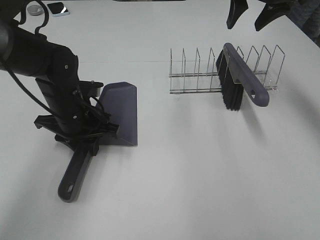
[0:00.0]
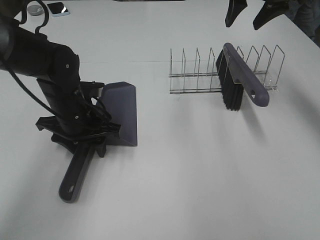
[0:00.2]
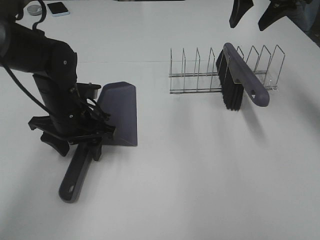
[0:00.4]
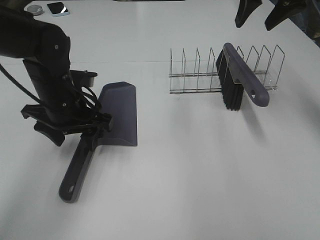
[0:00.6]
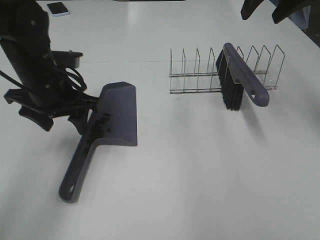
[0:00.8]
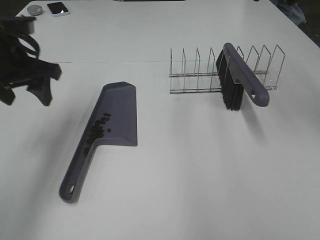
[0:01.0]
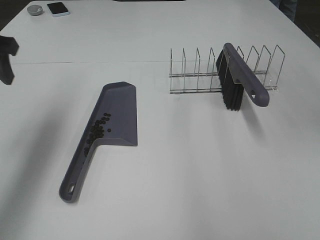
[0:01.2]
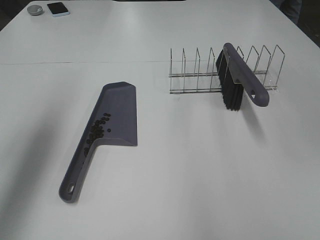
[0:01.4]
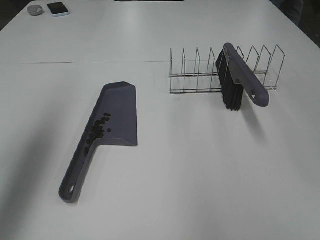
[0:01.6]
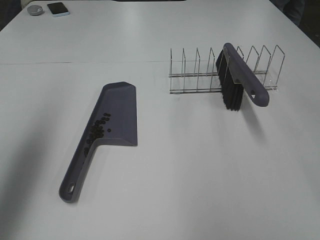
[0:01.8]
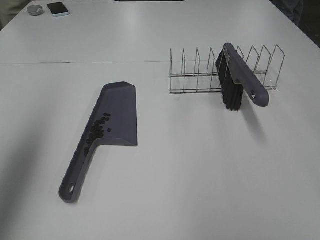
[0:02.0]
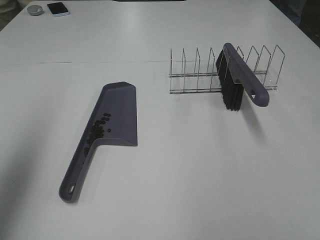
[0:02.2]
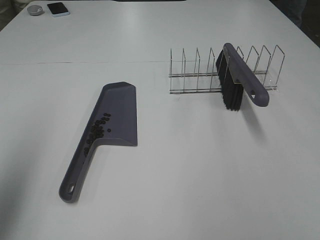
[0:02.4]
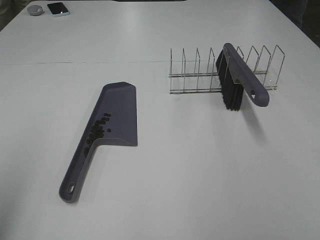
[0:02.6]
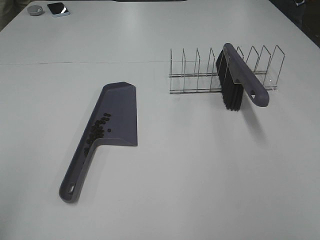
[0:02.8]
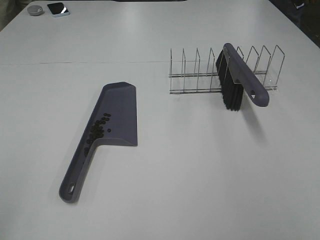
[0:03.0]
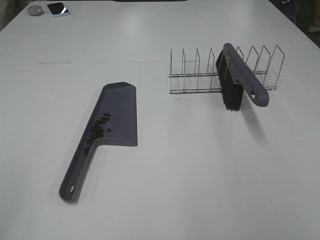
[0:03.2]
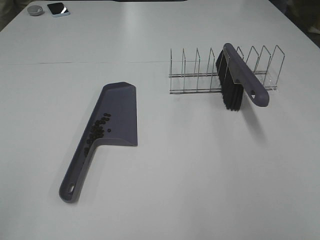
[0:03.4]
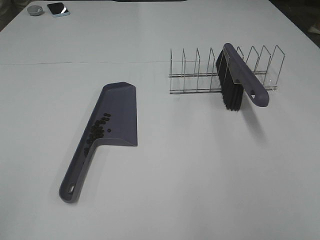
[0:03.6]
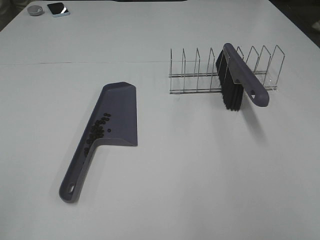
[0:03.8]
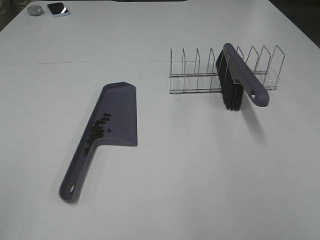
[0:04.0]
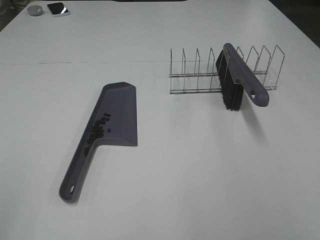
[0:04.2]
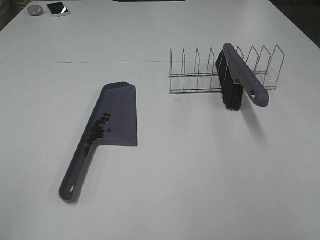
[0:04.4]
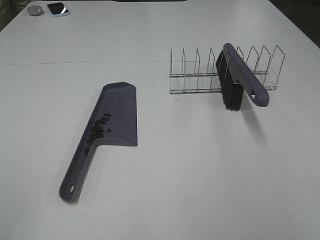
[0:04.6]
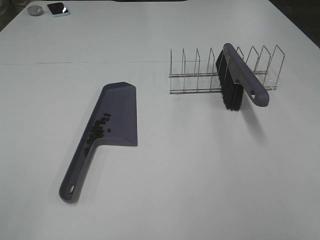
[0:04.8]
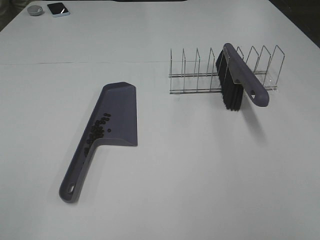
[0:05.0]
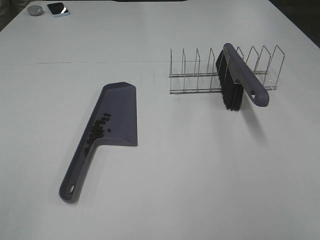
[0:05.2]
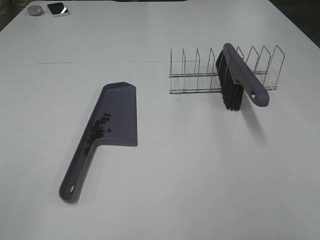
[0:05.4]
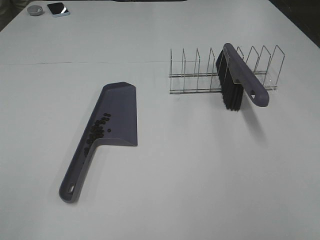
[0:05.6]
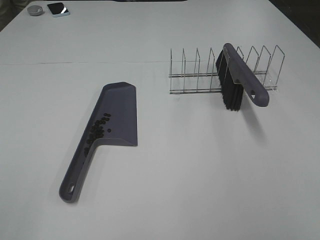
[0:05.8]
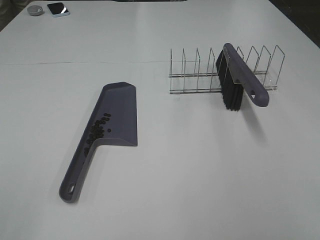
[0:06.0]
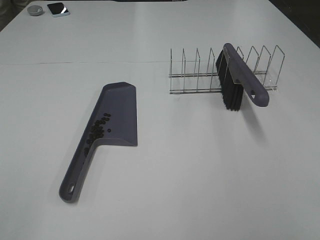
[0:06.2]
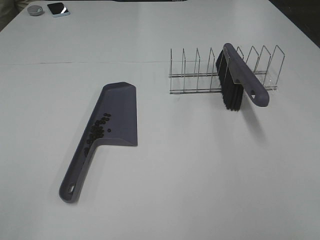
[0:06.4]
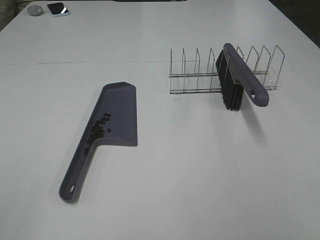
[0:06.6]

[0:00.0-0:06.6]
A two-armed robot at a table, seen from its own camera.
Task of the whole recording: Sweep Coffee Bean.
0.0 to 1.6 s: The right gripper moves backward and upward, roughly 25 cm. Meanwhile the left gripper heads upward and to the left, covering about 30 cm, and opens.
1.6 to 3.2 s: The left gripper travels backward by about 25 cm.
5.0 to 6.6 s: Both grippers stay put.

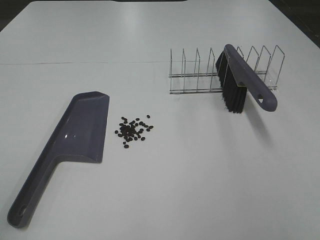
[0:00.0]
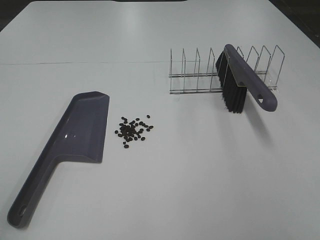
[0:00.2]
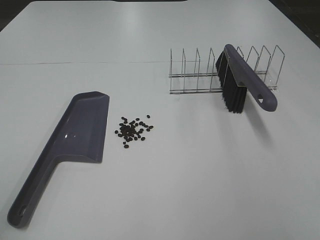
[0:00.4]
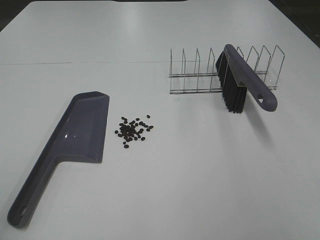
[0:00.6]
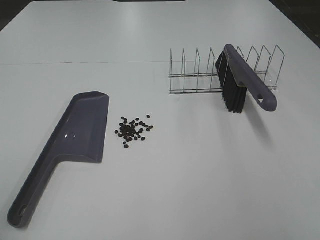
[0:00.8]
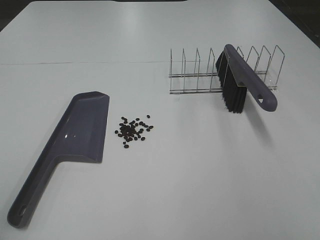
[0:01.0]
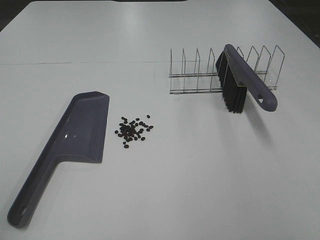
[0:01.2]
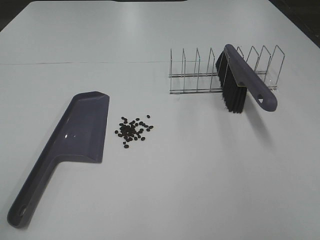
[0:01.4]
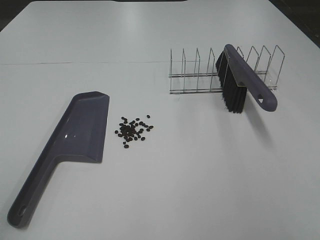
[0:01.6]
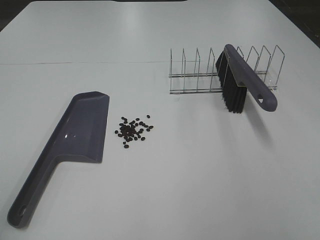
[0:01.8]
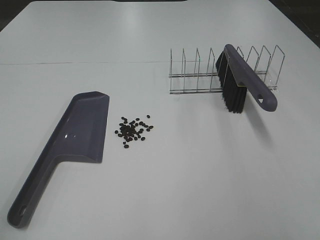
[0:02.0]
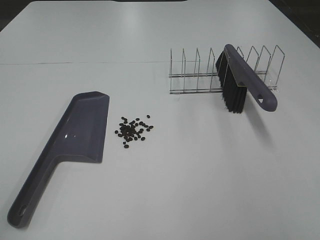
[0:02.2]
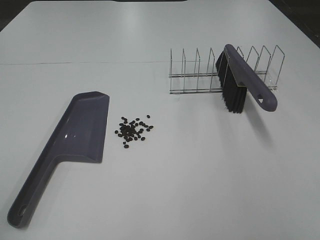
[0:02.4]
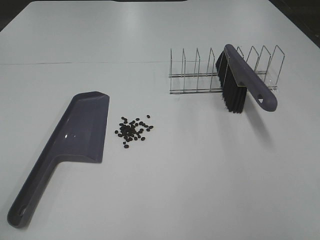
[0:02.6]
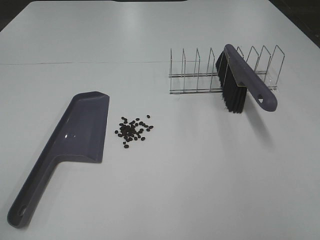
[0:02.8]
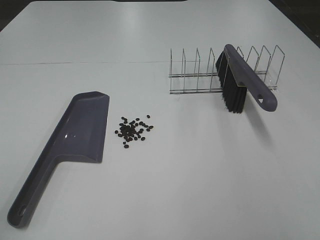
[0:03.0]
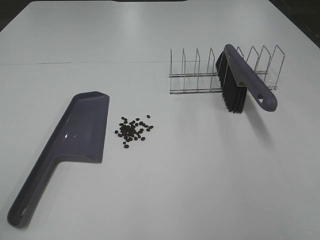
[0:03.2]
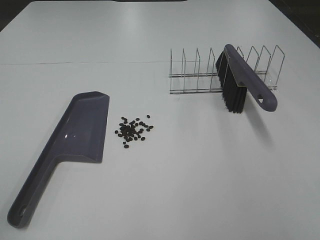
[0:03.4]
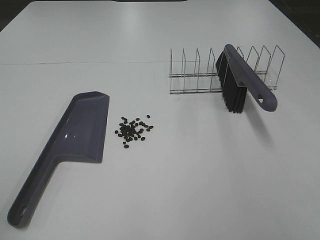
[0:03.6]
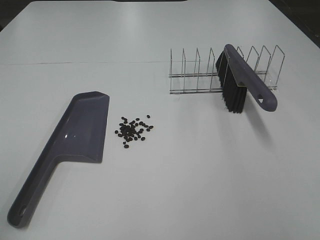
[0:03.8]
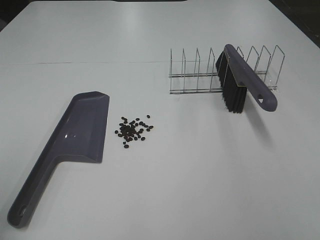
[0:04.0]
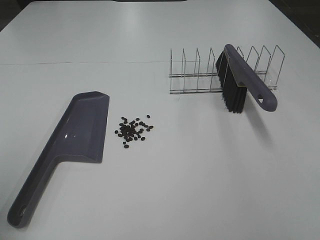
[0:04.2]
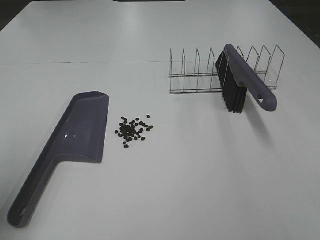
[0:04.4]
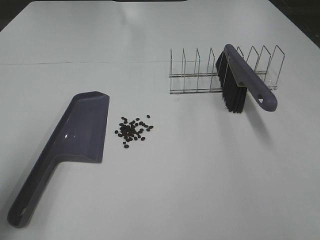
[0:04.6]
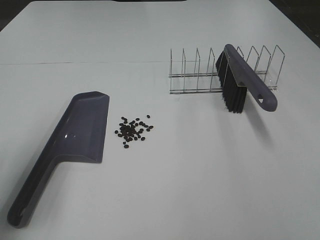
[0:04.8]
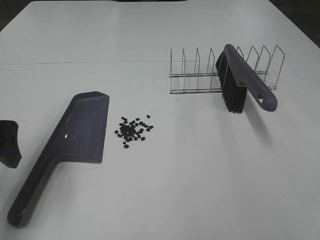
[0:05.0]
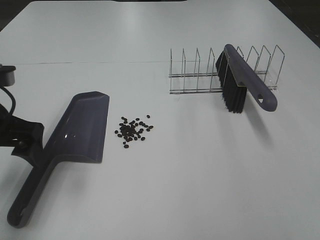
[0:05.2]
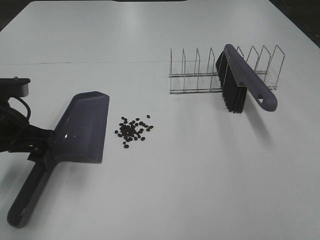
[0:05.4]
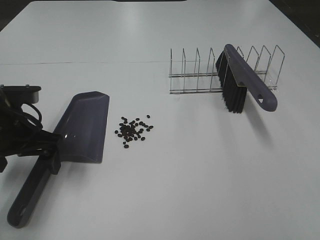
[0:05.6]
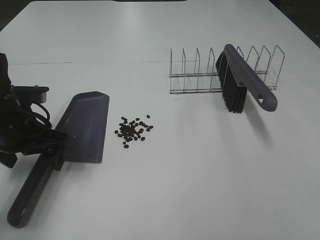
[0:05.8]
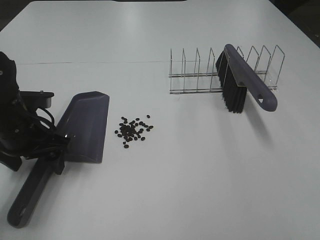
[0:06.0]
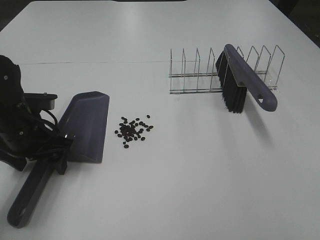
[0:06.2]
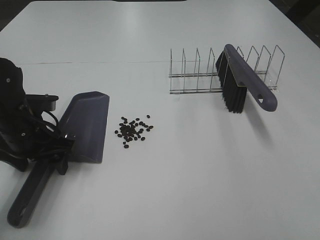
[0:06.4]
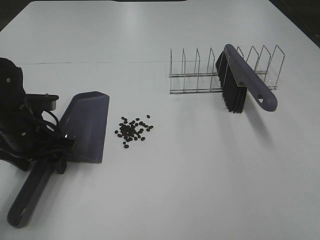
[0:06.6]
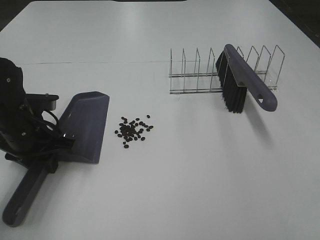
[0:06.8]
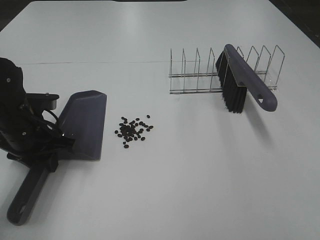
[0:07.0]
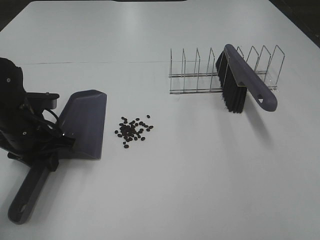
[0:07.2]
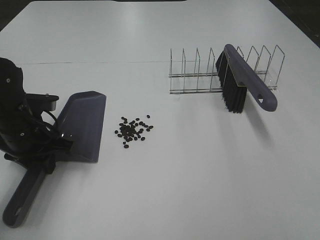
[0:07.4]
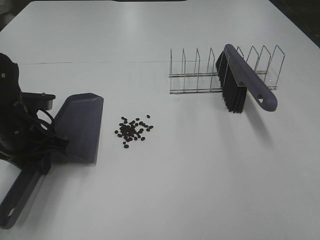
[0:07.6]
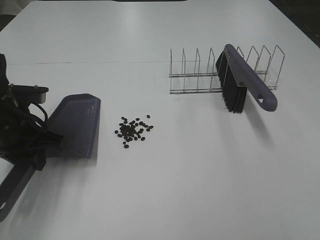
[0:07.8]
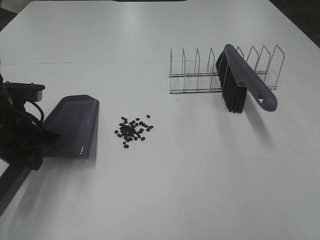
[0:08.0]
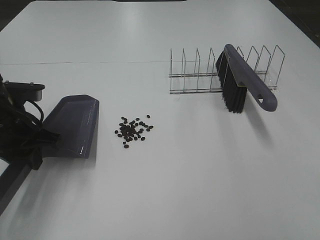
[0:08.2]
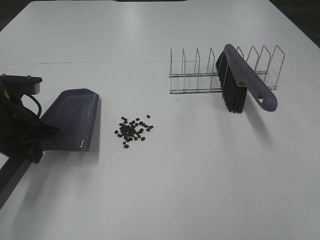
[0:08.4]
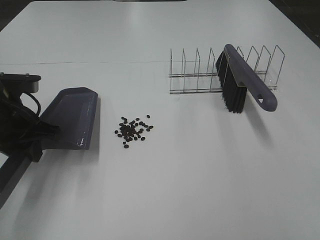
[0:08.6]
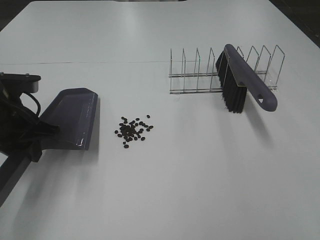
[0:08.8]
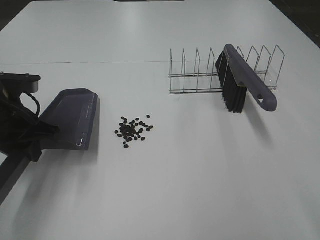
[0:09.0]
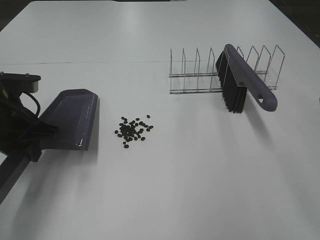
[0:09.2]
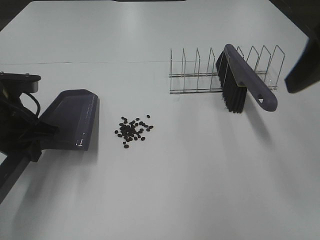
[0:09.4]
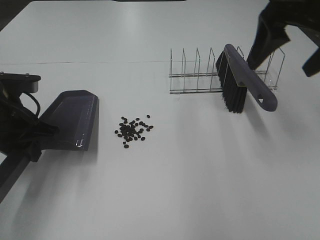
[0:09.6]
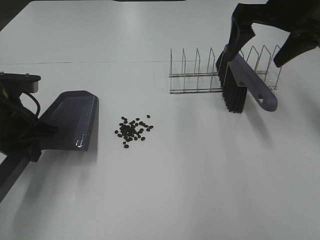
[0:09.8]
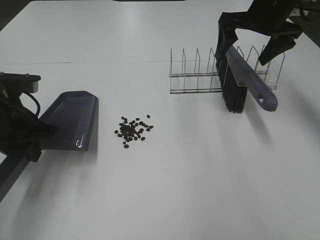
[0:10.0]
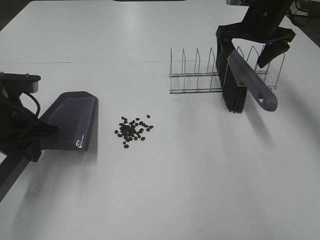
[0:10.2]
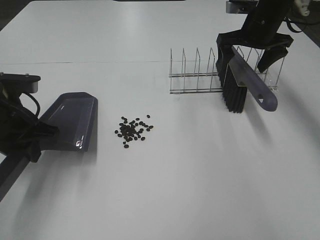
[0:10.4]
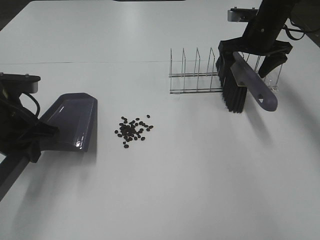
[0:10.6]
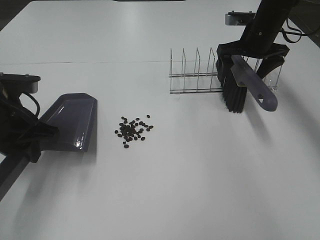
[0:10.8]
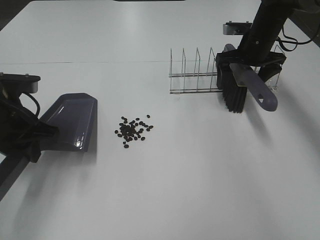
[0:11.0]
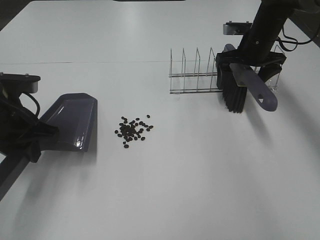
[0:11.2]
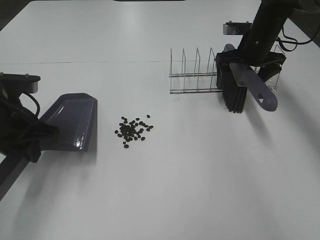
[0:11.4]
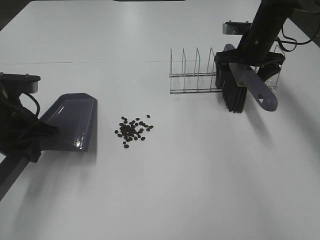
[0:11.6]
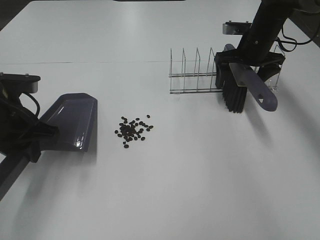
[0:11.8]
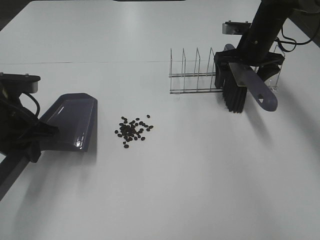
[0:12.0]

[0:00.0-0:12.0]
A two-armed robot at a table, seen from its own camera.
Task of the whole recording: Sweep Coffee Bean.
Step, 0.0 to 7.2 s: Left hand: grab the dustpan.
0.0 to 3.0 s: Both grippers stay about where they are.
3.0 to 4.4 s: The left gripper travels forward by roughly 15 cm.
4.4 to 6.0 s: The left gripper shifts some 25 cm downward, forward and to the right.
6.0 to 7.6 s: The left gripper closes up.
9.0 to 10.4 s: The right gripper heads forward, covering approximately 40 cm.
10.4 to 12.0 s: The grippers make only small movements.

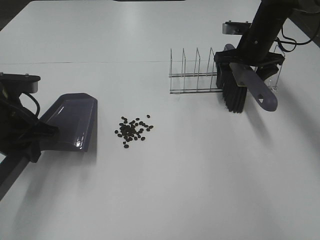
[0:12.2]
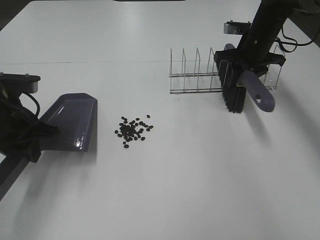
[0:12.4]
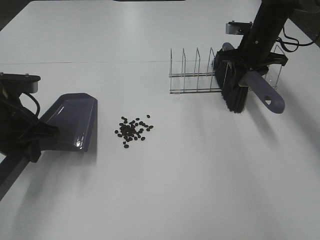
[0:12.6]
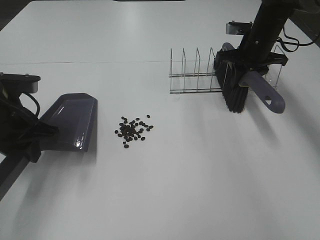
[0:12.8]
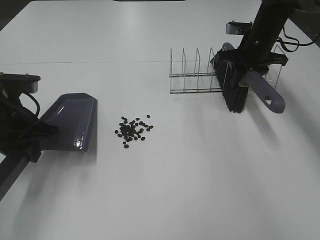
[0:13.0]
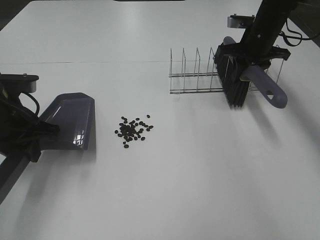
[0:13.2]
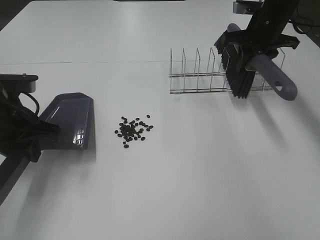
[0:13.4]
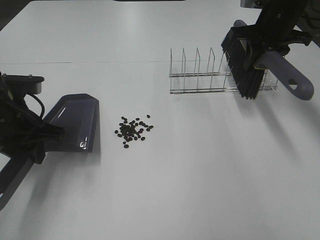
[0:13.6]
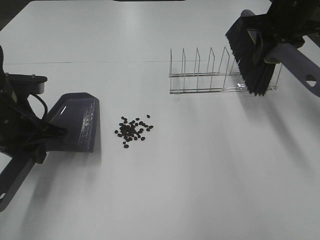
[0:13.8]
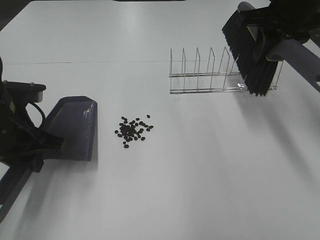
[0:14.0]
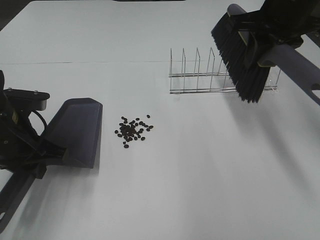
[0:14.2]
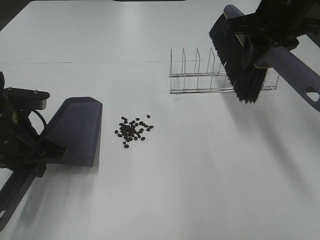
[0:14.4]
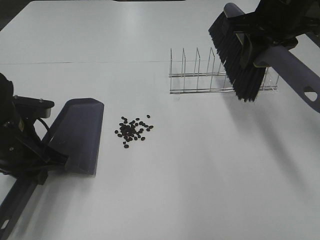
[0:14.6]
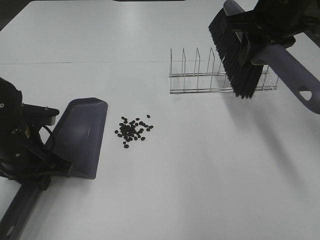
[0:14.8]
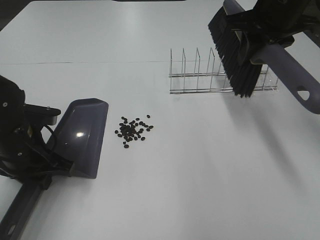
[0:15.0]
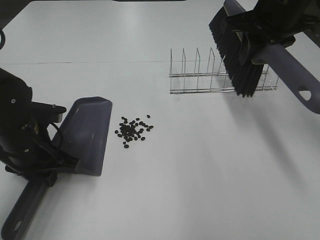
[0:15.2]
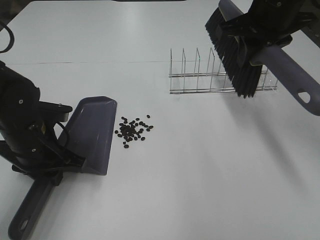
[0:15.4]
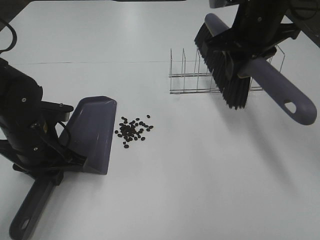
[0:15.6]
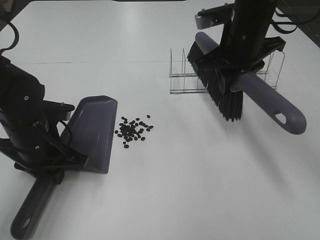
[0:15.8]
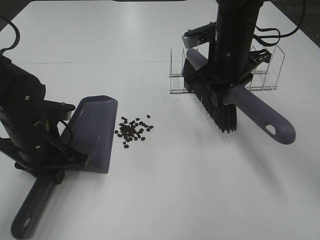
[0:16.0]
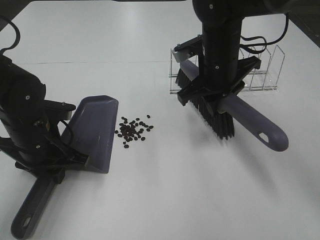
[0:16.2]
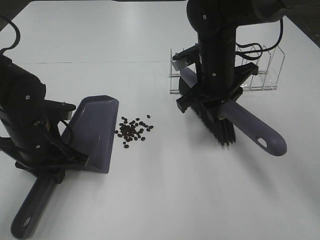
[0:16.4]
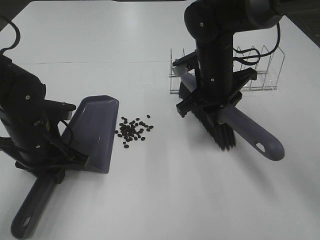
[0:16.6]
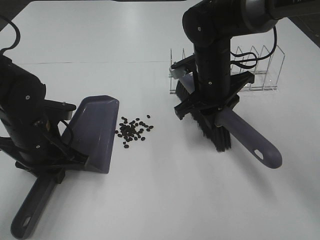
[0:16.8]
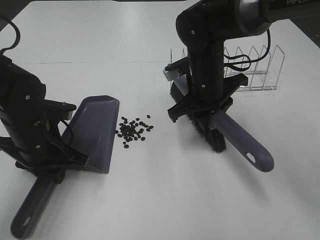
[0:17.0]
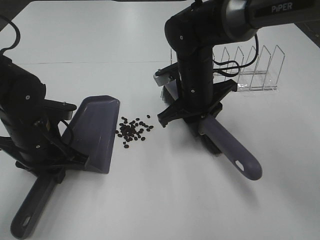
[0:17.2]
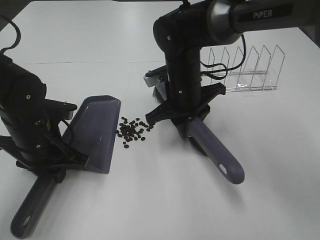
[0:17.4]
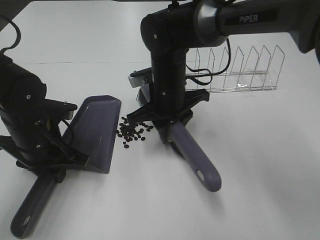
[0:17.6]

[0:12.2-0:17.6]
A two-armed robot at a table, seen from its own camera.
Task of the whole recording: Sweep Coffee Bean.
Step, 12.2 to 15.6 s: Left hand: move the dustpan to the left side of the coffee beans.
12.2 to 13.6 s: The right gripper goes roughly 10 cm upward, and closes its fingers.
13.6 to 15.0 s: The right gripper shifts about 10 cm backward and upward, while the left gripper travels downward by roughly 5 cm.
15.0 to 16.2 s: The right gripper is displaced downward and to the left by some 15 cm.
16.2 to 17.6 s: The right gripper is displaced to the left by roughly 10 cm.
